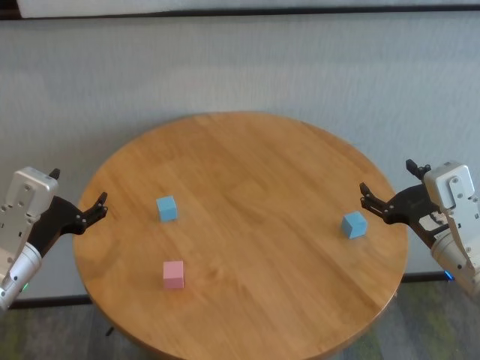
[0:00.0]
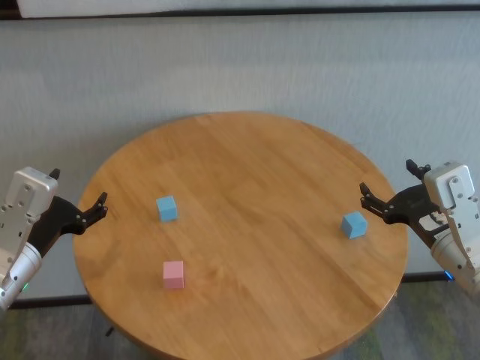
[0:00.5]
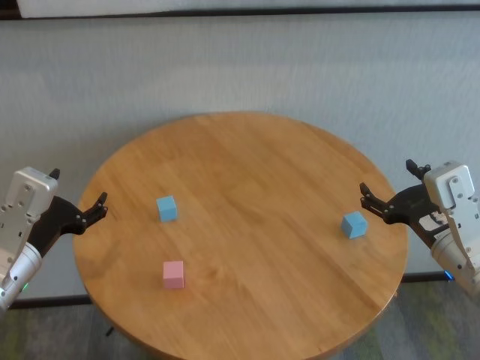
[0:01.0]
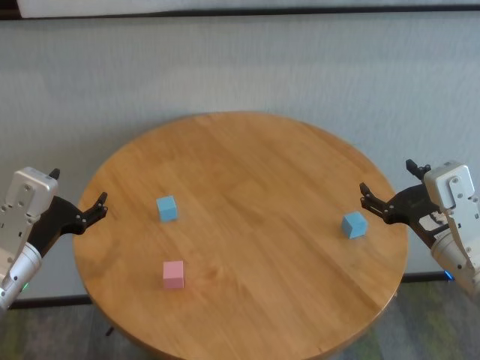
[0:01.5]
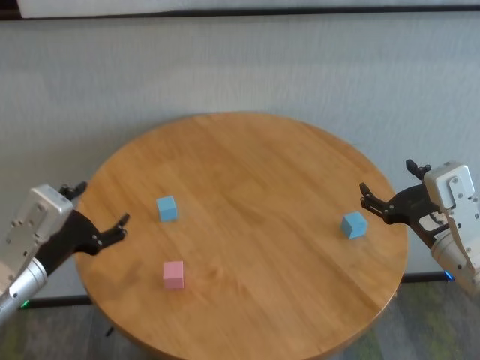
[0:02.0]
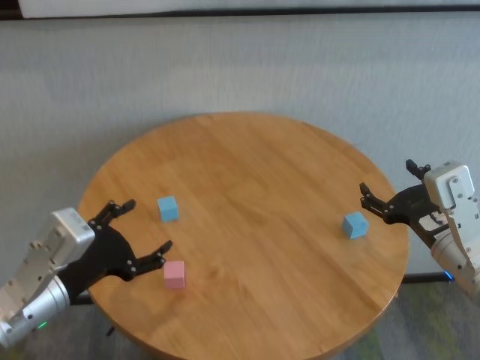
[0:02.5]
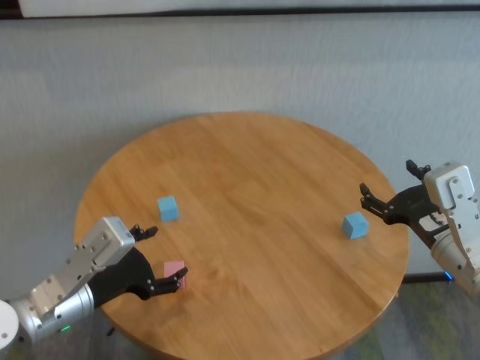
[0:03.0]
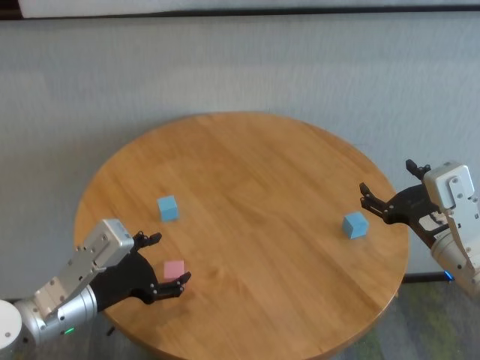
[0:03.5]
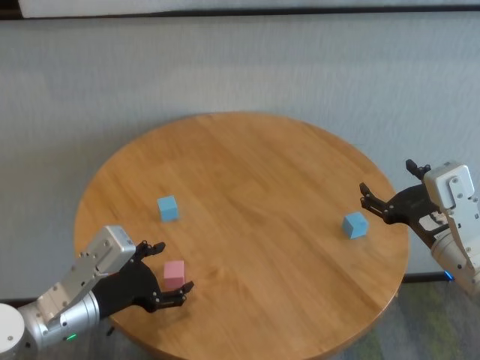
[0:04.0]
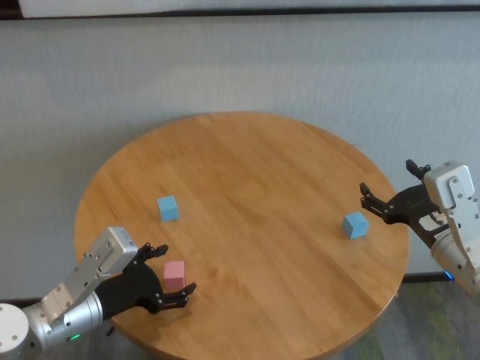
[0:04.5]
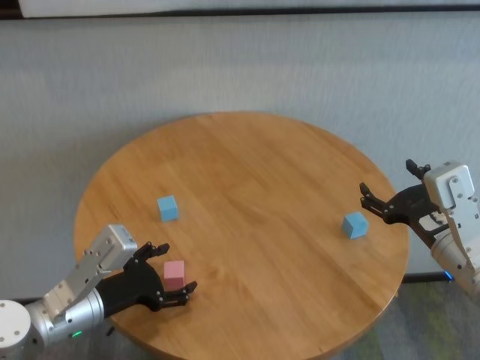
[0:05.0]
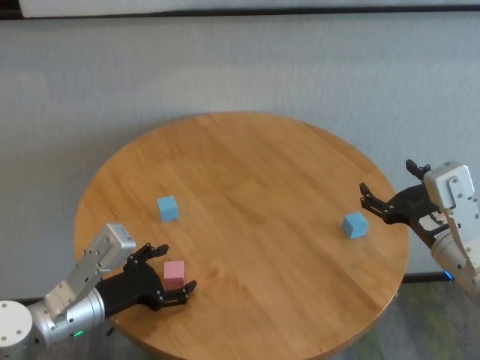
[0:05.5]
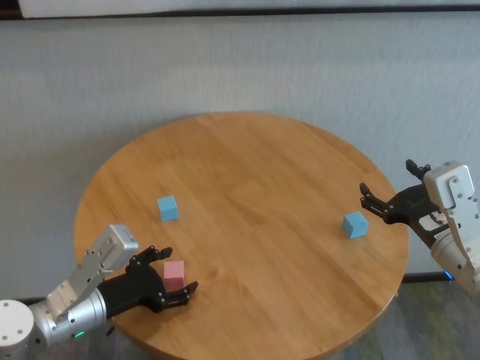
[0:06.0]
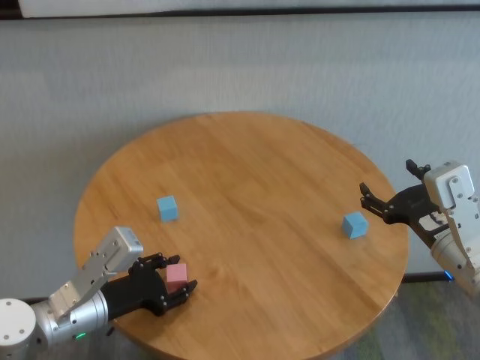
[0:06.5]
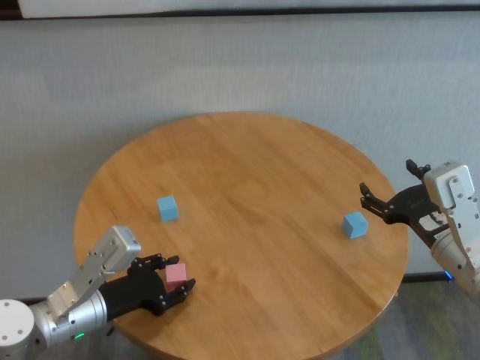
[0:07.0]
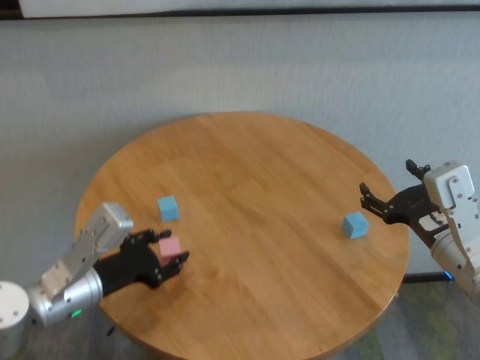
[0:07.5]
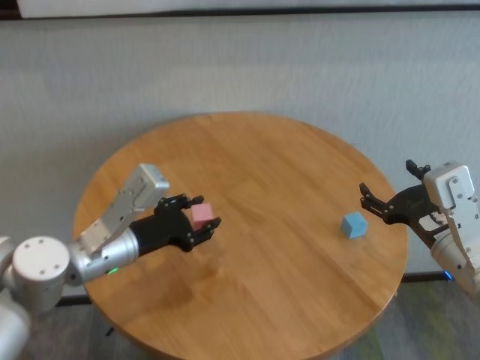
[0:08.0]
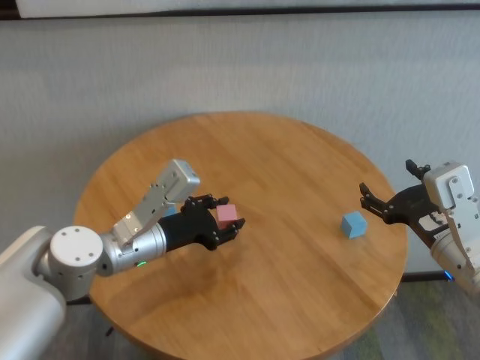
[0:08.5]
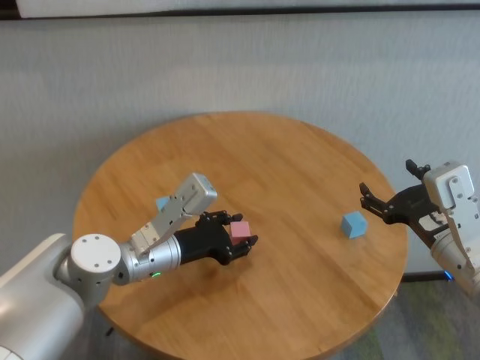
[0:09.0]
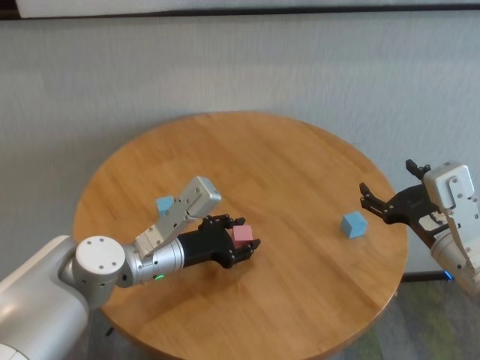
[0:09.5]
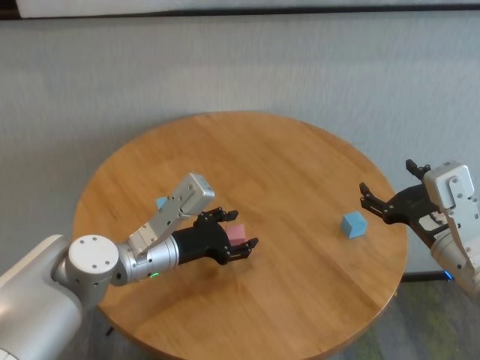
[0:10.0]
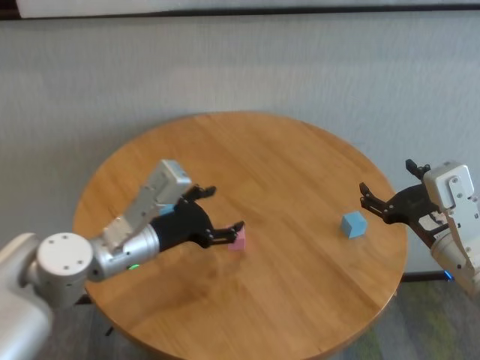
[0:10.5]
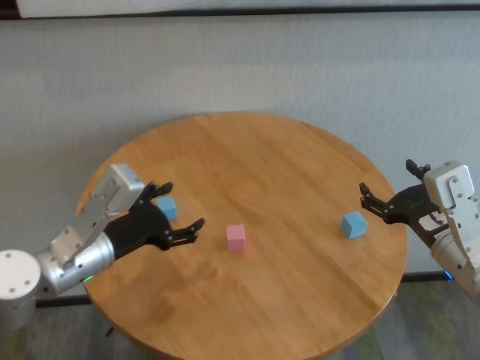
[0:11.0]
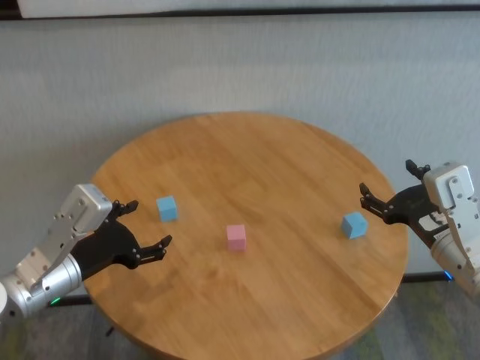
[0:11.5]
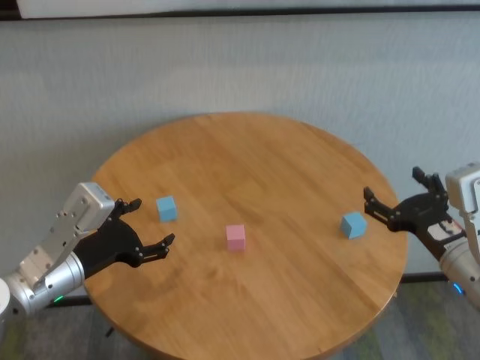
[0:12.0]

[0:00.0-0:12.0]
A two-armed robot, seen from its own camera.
Task of the whole recording: stack building blocks on the table.
Step, 0:00.0 to 0:06.5: Grasp the pink building block with left gripper.
Step, 0:07.0 to 0:10.0: Place the pink building block in the center of table with left gripper.

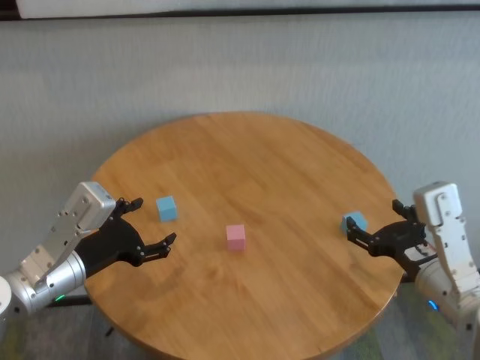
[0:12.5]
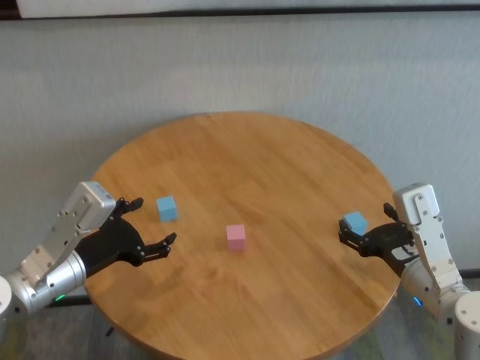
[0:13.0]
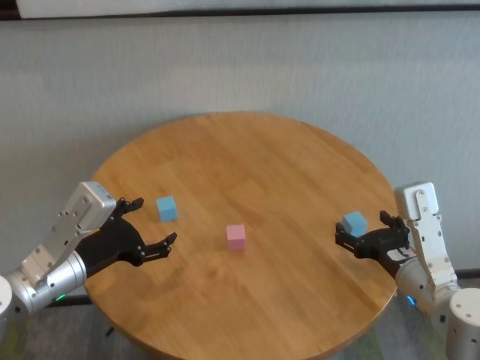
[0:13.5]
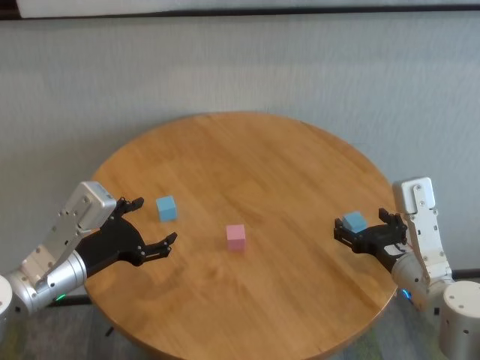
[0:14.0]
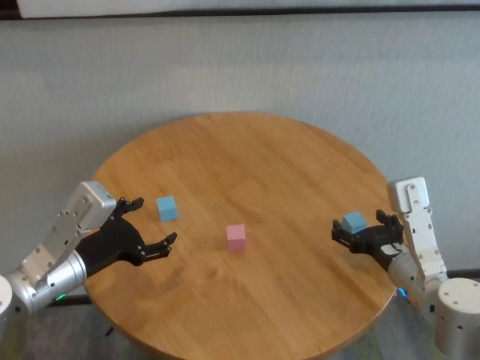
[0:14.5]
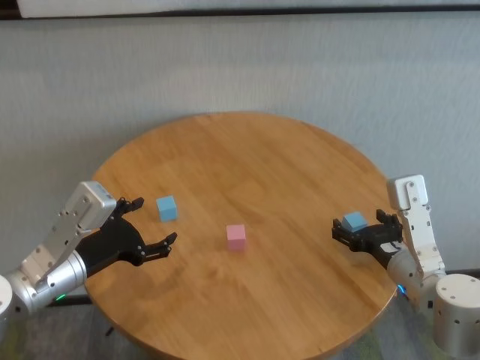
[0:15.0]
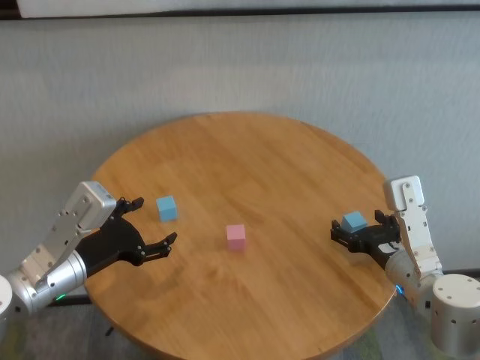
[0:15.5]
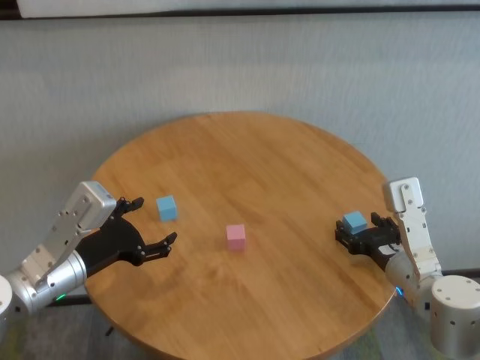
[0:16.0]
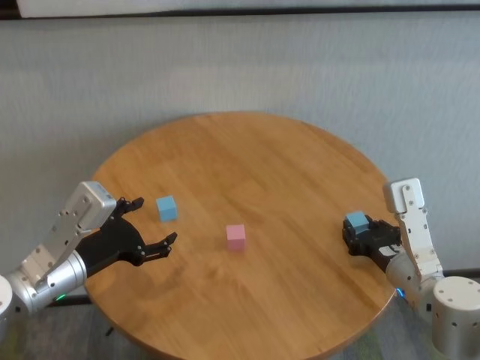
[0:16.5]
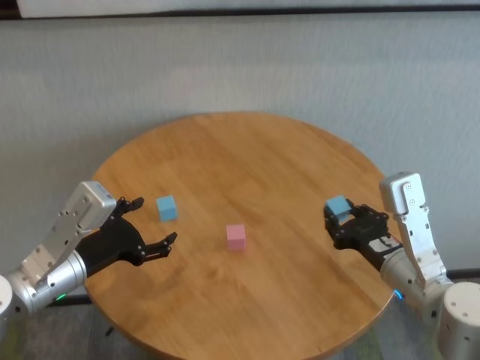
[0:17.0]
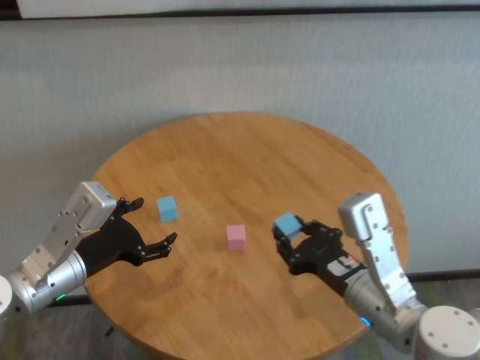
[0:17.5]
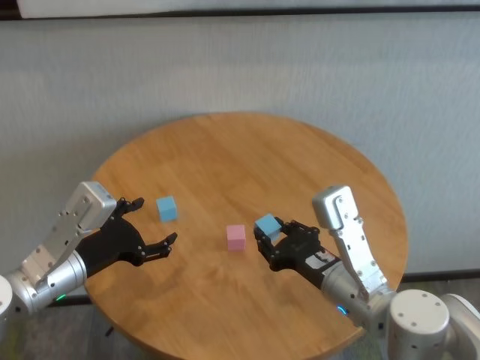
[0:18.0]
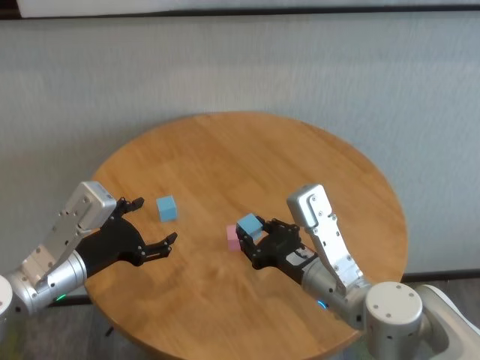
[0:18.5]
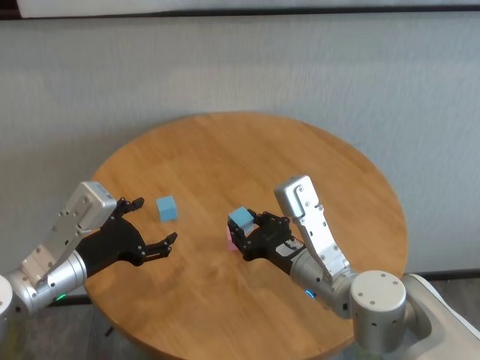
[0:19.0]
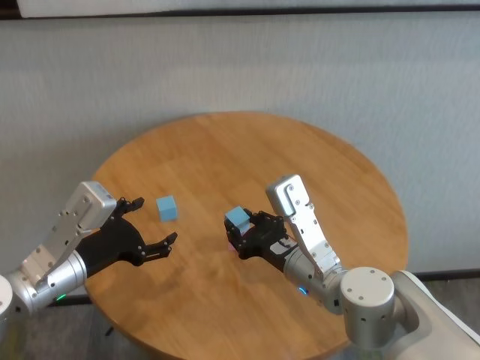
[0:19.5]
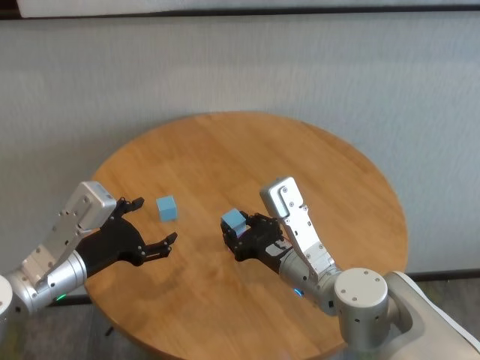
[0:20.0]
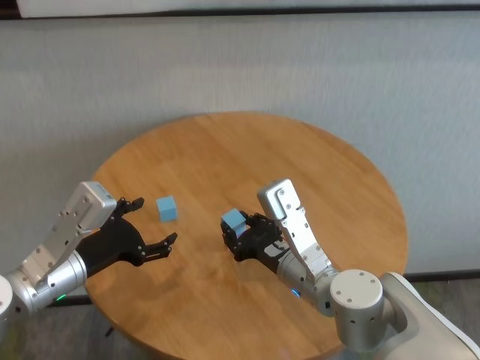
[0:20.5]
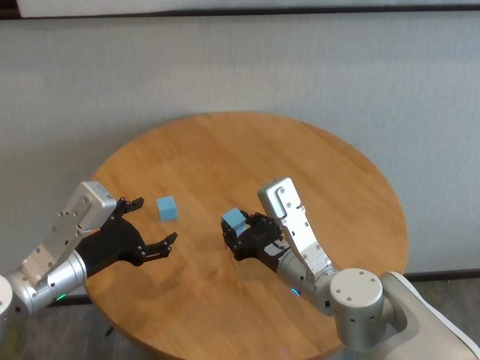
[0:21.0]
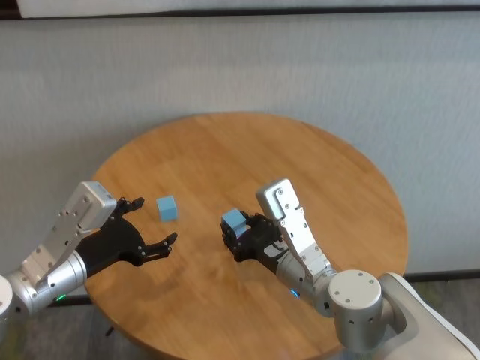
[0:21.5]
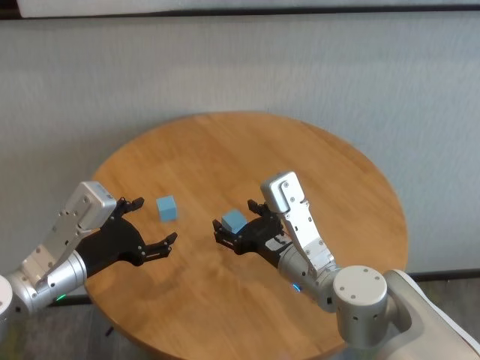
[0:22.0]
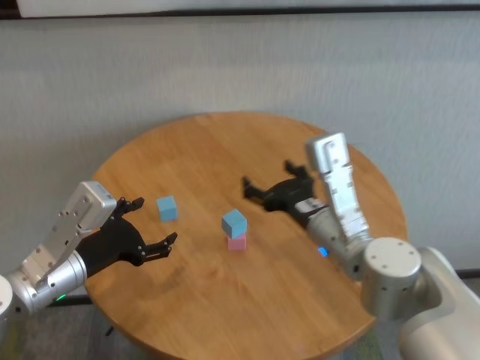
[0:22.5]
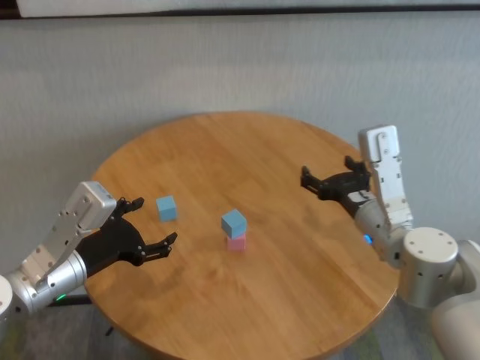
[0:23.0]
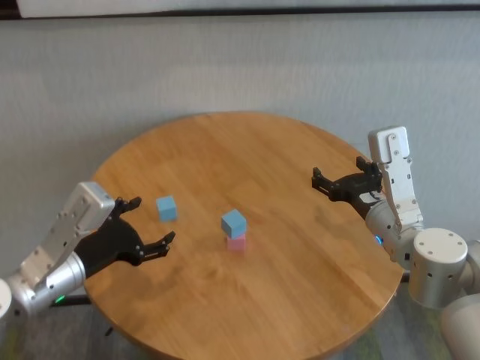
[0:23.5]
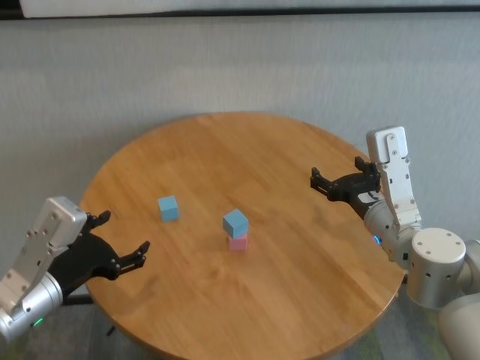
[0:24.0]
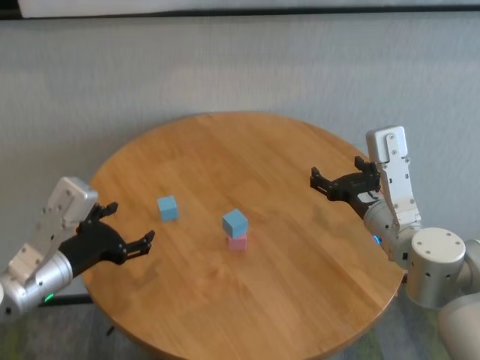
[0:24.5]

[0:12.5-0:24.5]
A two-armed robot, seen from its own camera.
Task of the whole recording: stack building blocks on the table.
Step, 0:12.5 to 0:16.0: Grasp the blue building block with right gripper.
Step, 0:16.5 to 0:21.5: Place the blue building block on the pink building blocks with right gripper.

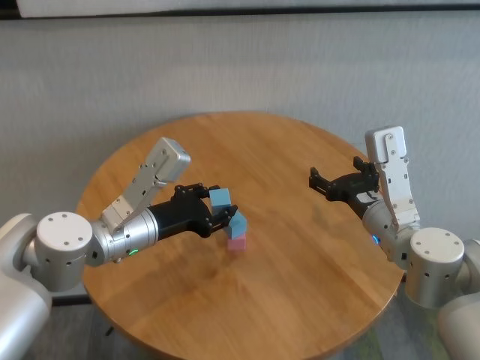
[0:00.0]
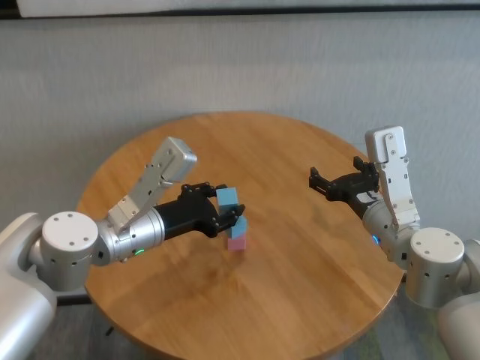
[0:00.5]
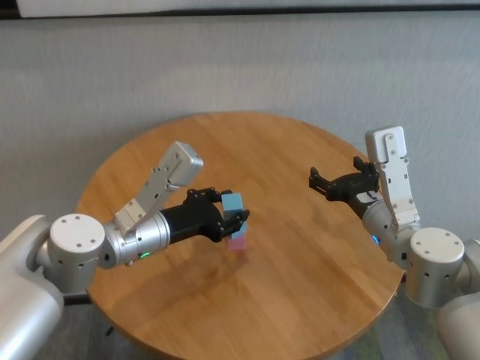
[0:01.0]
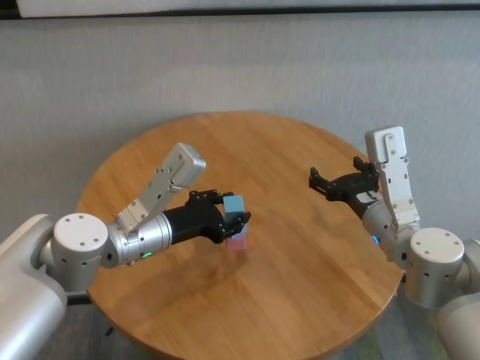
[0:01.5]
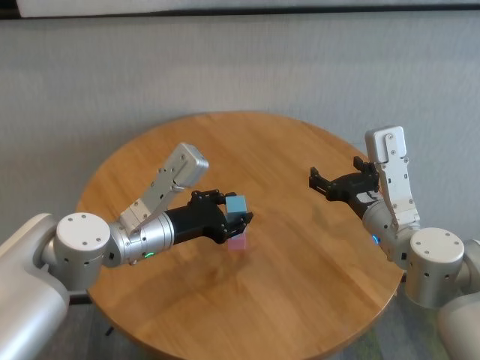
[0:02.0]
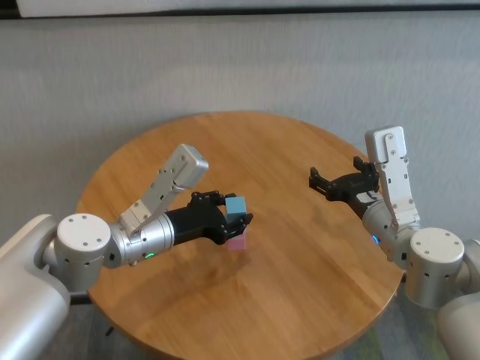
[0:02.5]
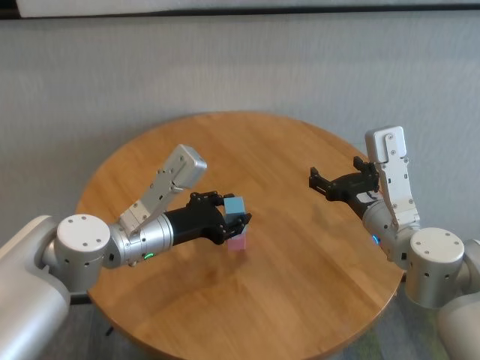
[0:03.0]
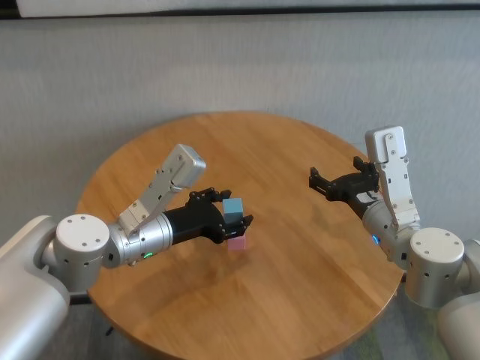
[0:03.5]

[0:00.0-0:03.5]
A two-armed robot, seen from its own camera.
Task of the whole recording: stack building blocks on the table.
Step, 0:00.0 to 0:03.5: Place the blue building block on the blue building blocks with left gripper.
